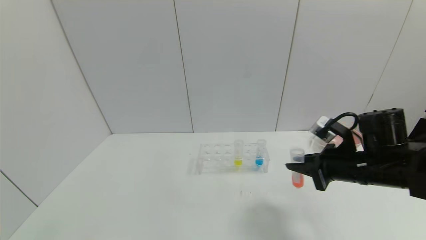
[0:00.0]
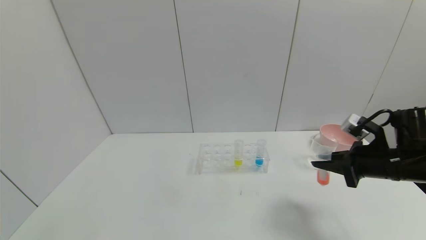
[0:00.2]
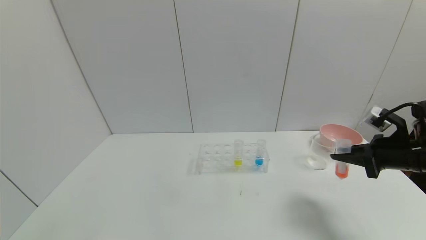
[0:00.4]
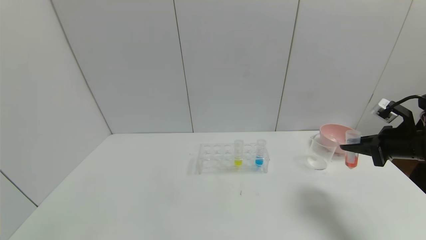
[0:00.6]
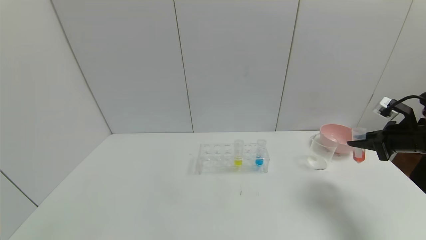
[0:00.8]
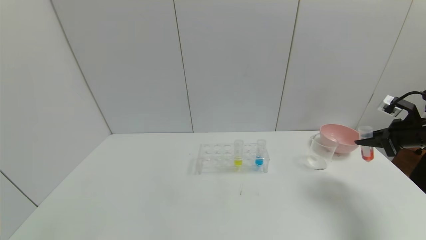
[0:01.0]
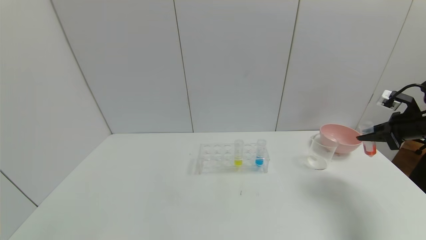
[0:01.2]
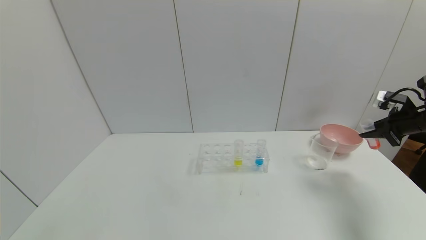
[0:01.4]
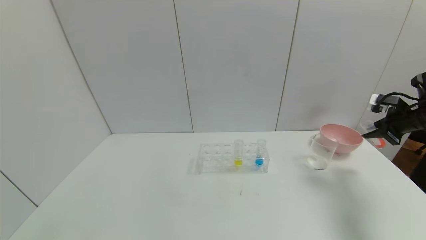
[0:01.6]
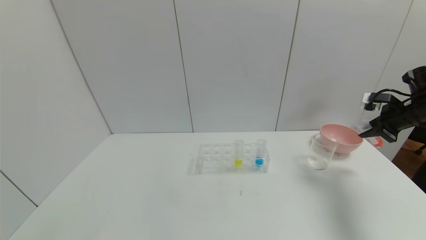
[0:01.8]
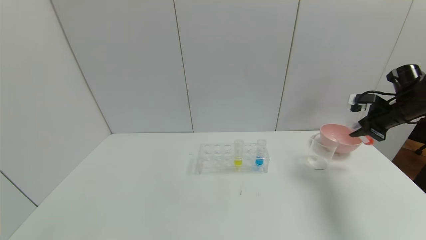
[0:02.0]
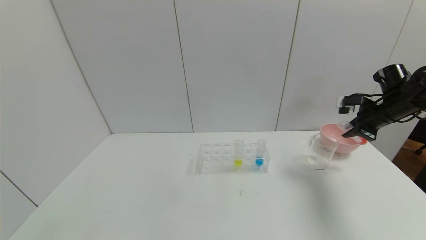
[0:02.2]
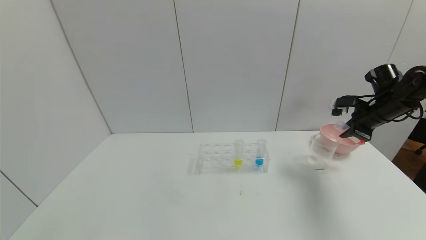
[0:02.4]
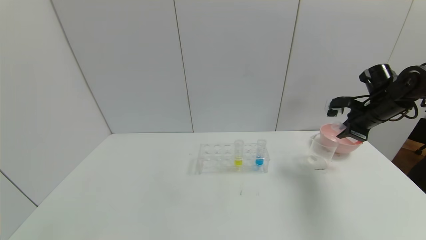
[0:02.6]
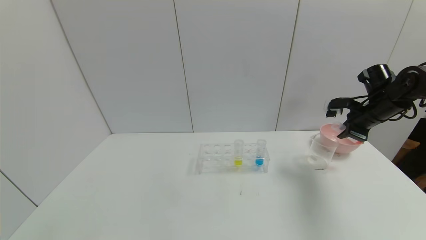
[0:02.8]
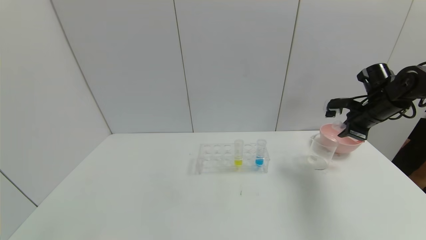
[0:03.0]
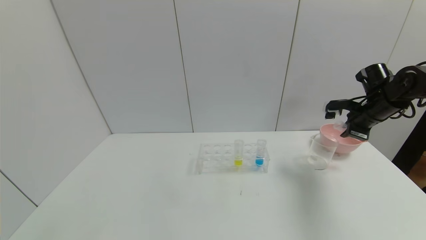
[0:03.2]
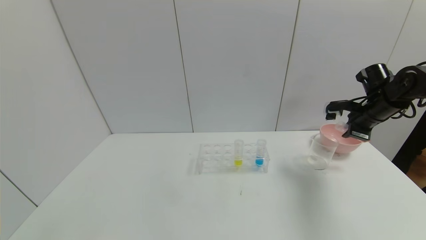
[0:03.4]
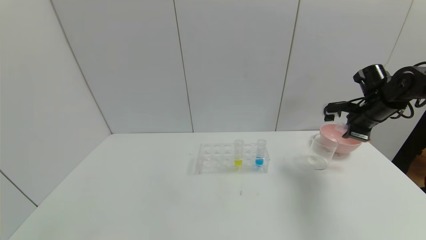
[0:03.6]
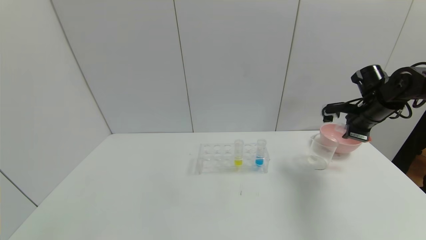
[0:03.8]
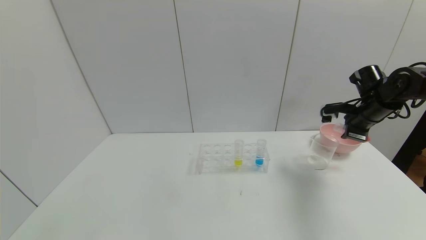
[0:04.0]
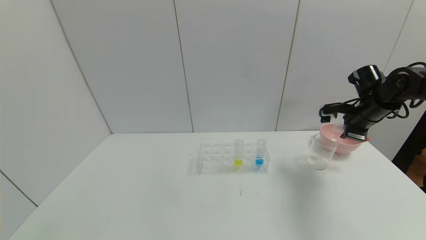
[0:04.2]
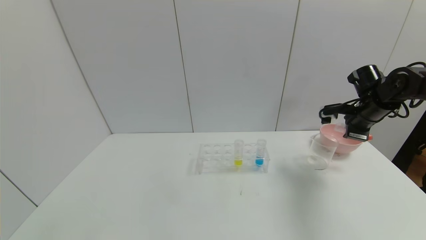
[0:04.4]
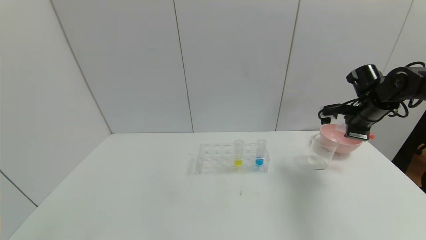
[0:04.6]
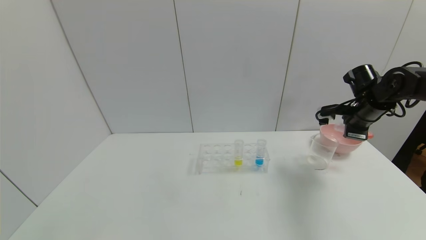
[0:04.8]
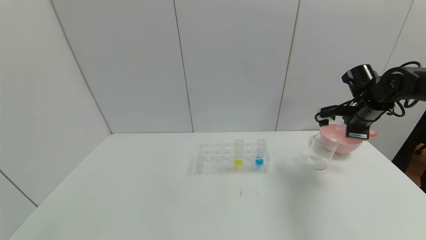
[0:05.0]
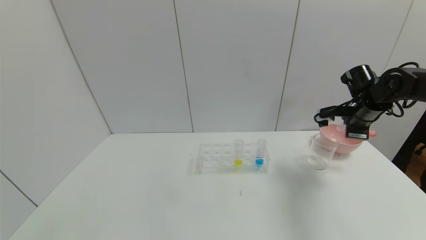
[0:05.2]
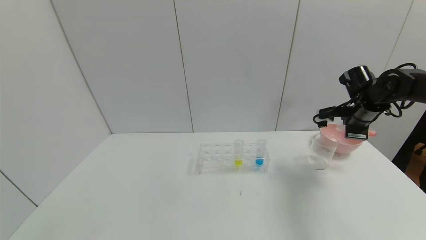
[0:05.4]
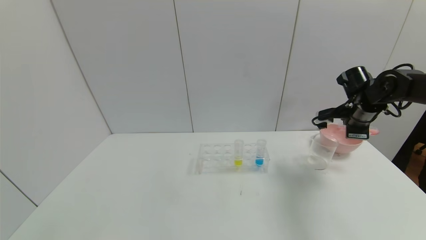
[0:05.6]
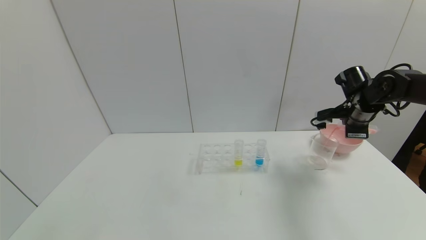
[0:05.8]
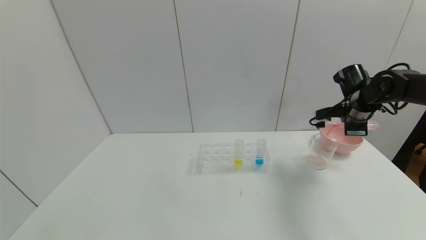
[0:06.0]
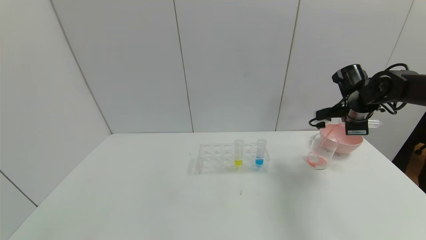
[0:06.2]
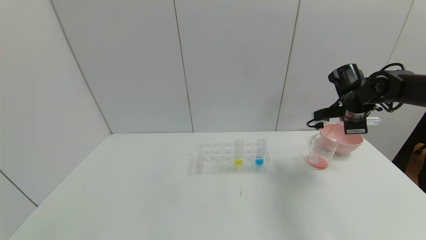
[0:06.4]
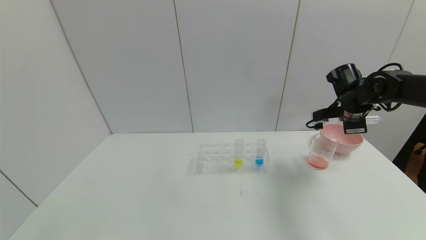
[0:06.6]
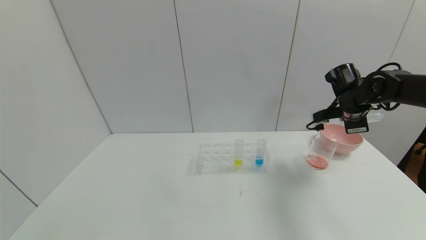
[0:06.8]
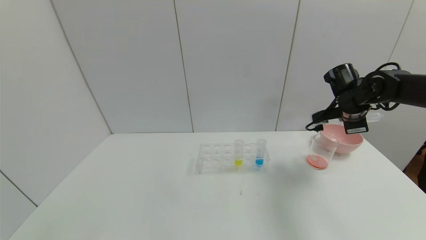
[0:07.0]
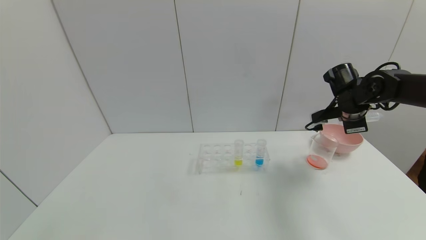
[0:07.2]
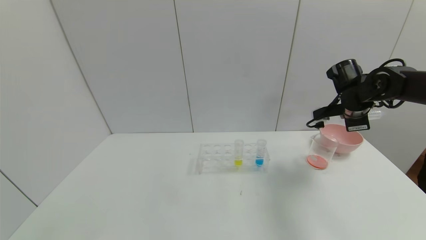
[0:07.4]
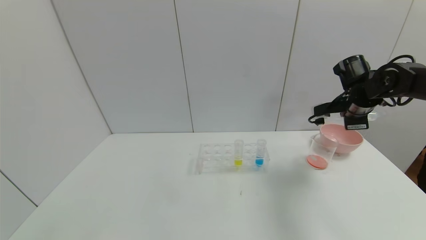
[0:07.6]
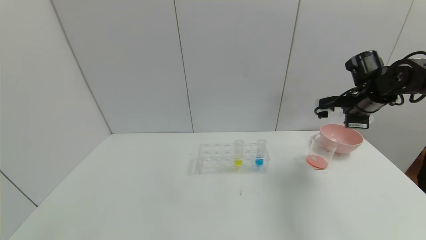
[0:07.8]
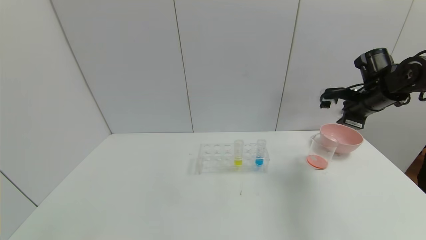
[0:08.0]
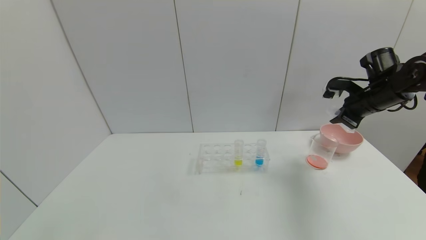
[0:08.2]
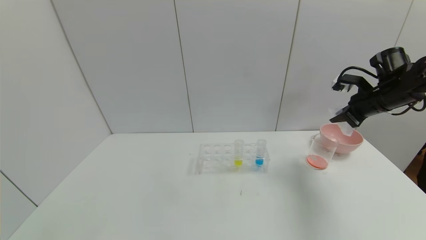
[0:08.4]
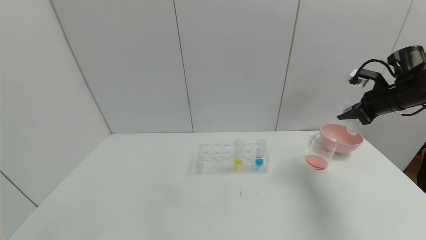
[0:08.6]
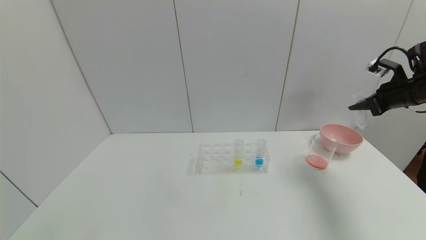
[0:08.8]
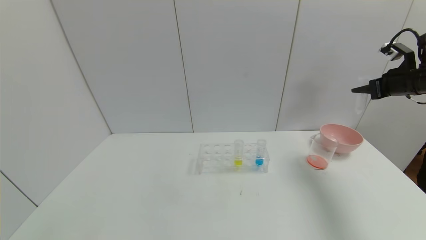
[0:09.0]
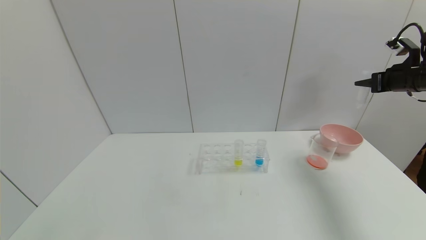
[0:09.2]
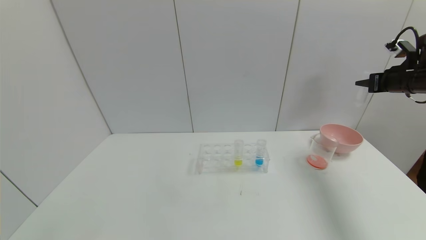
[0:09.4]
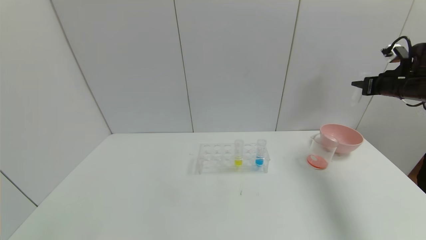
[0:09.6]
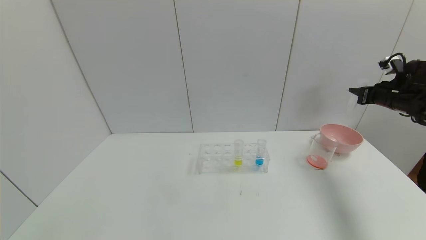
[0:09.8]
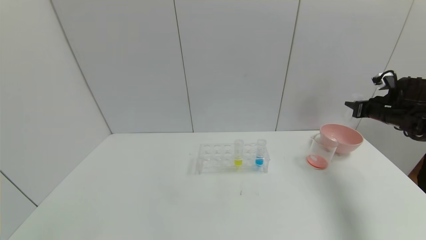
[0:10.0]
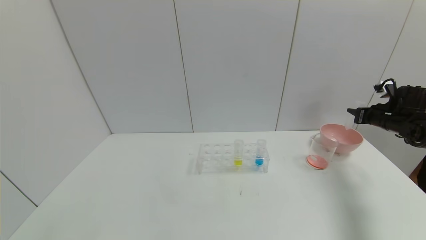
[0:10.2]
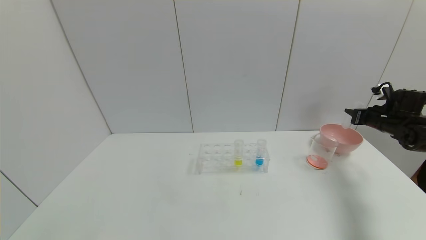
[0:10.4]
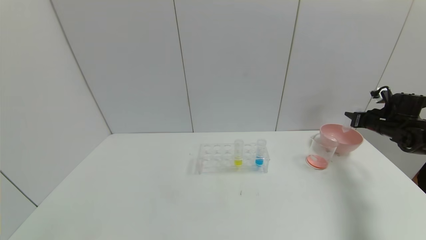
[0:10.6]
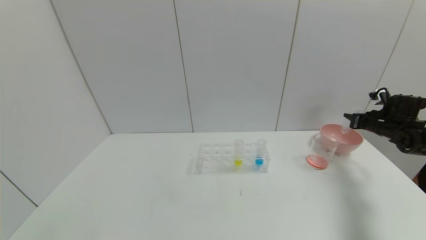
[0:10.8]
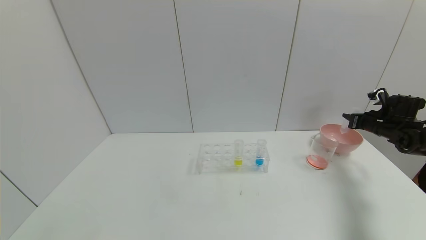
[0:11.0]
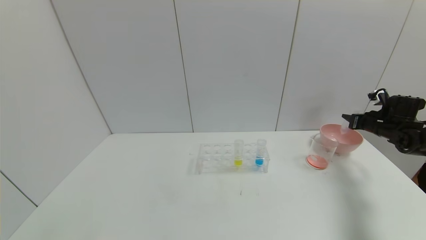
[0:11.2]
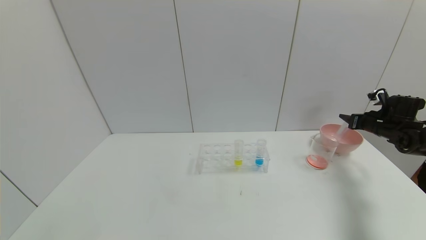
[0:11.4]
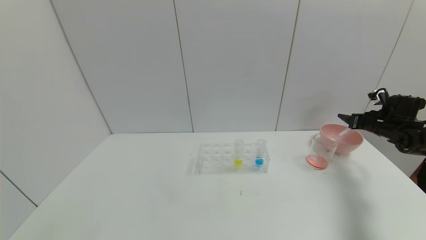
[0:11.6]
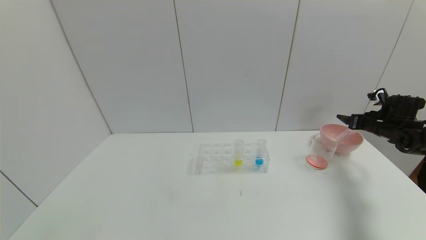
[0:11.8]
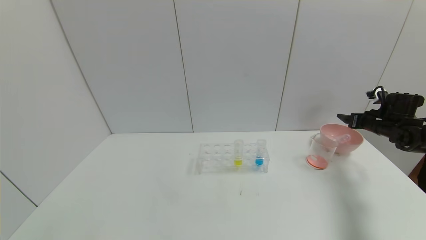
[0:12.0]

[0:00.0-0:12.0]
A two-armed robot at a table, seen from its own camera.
Task of the whole recording: pick up the test tube with yellow pigment and the test tube with red pigment by grippers and pour them into the beaker.
Step, 0:00.0 to 0:07.4: Pour the red reagent into the graduated cylinder with the right gripper.
Step, 0:07.6 to 0:11.8: Place the test tube into the pink bowl with the right gripper.
0:00.0 to 0:01.6: The right gripper is displaced to the right and forward by some 25 cm.
0:01.6 to 0:03.0: The right gripper heads to the left, covering roughly 10 cm.
0:03.0 to 0:04.4: The grippers stay close to where they were, moving slightly.
0:04.4 to 0:06.0: The grippers stay close to where they were, moving slightly.
0:06.0 to 0:07.6: The grippers move only a little.
0:07.6 to 0:09.0: The right gripper heads to the right and upward, covering about 15 cm.
0:09.0 to 0:10.4: The right gripper heads downward, covering roughly 15 cm.
0:10.4 to 0:12.0: The right gripper opens up.

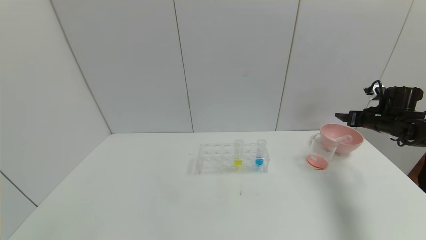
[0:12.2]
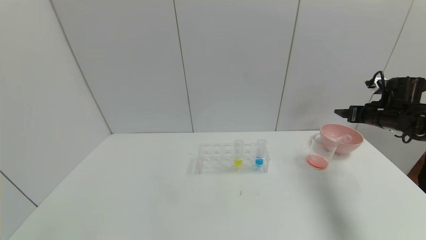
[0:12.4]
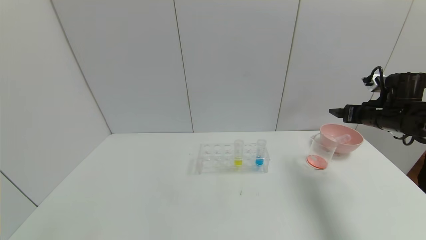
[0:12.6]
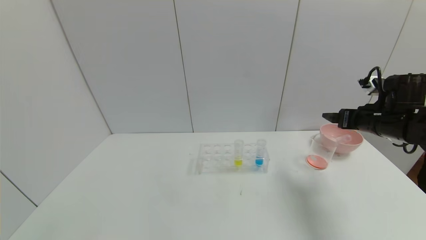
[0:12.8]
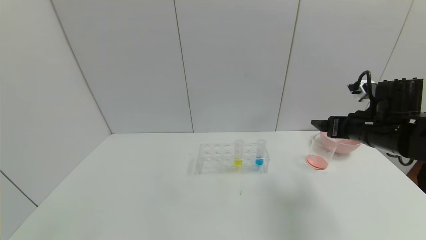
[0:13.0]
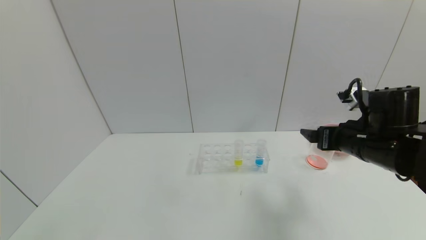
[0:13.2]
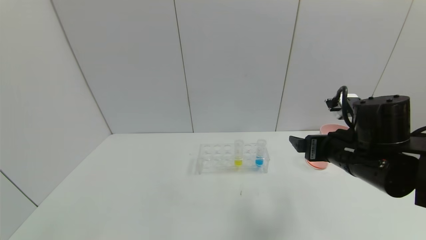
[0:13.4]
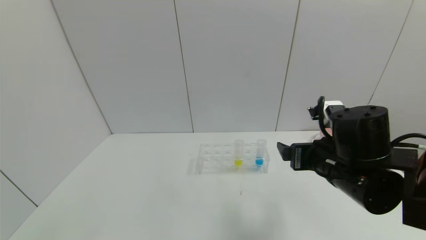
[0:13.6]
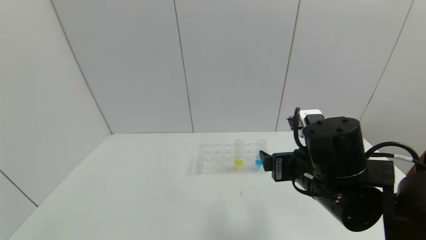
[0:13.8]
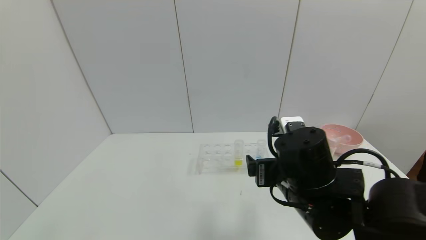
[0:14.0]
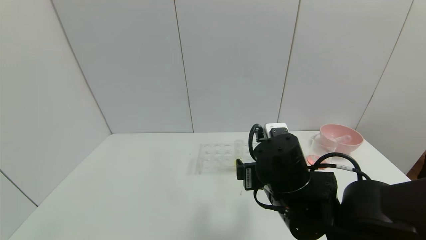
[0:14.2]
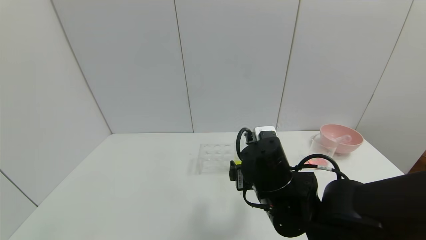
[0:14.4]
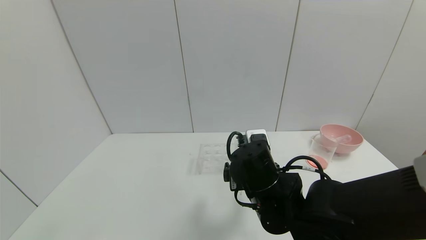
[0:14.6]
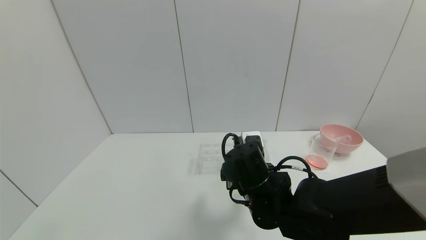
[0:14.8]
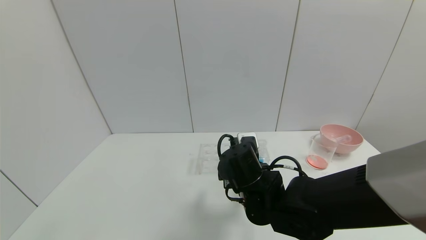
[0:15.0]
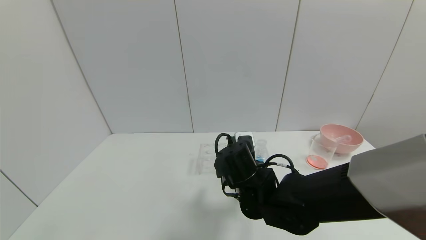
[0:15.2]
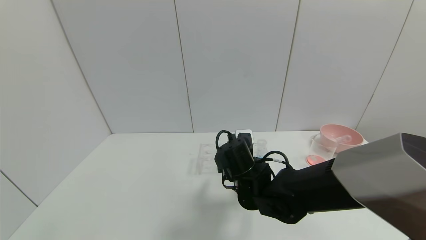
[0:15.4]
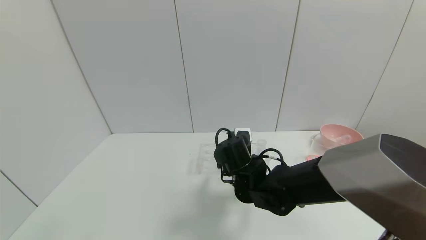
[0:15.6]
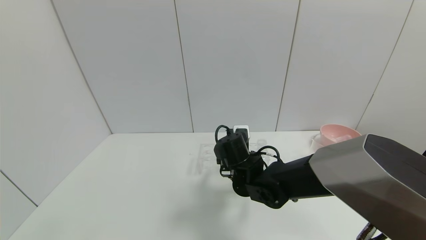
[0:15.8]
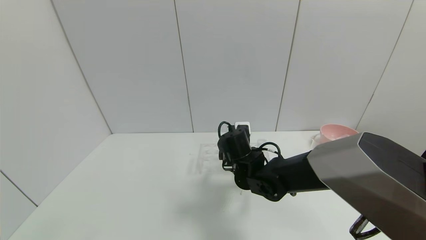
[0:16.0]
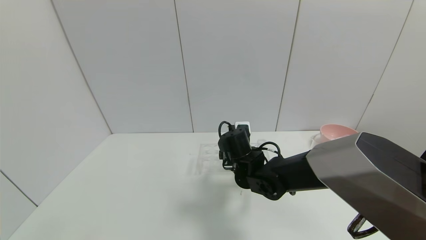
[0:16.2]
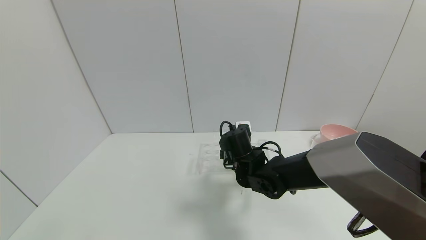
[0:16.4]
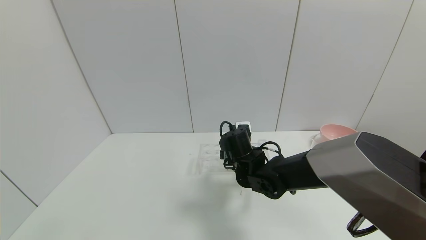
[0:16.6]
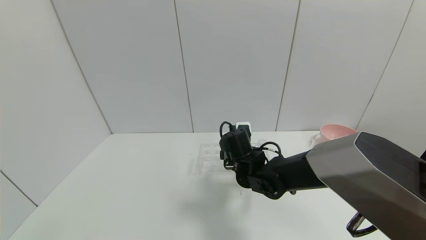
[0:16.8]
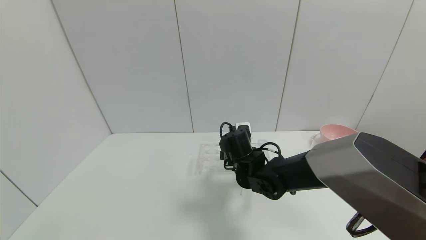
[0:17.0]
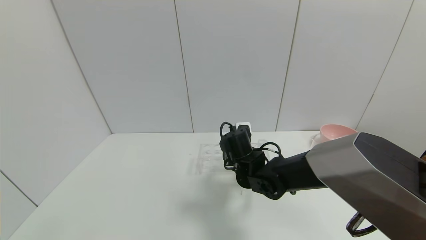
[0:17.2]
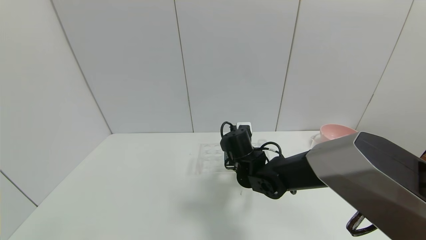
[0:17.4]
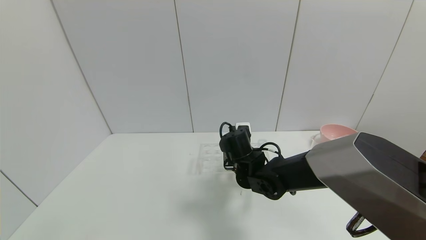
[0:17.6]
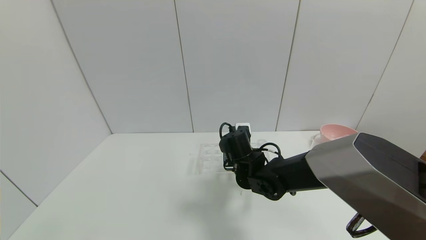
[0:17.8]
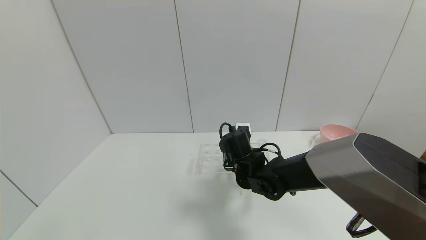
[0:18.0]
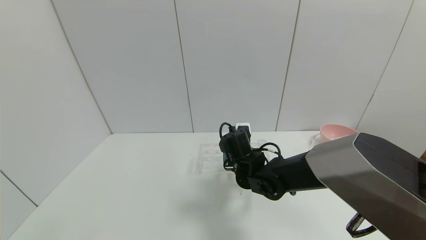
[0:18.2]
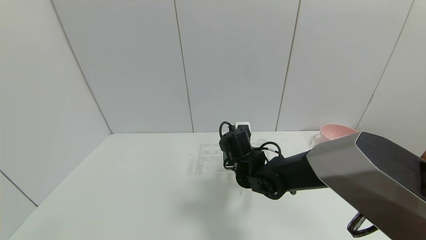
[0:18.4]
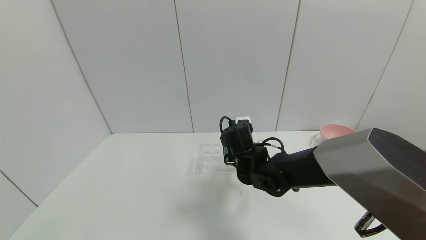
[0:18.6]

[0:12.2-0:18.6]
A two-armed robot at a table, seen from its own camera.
Task of the whole recording: pick up the test tube with yellow pigment and the test tube with red pigment by grippers and pour them into the beaker.
Step, 0:12.2 to 0:18.0: Grasp the yellow reagent with the right gripper.
0:12.2 to 0:13.8: The right gripper goes some 35 cm to the left and backward.
0:13.8 to 0:15.4: The right gripper is displaced to the left, forward and downward by some 15 cm.
0:15.4 to 0:17.0: The right gripper moves forward, approximately 5 cm.
0:17.0 to 0:18.6: The right gripper closes up.
